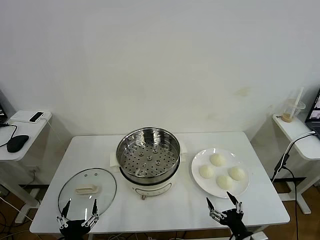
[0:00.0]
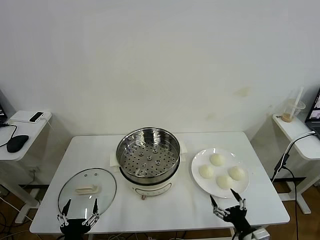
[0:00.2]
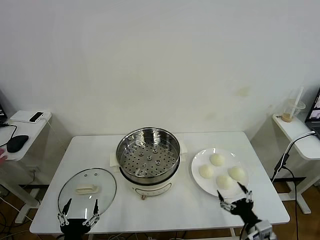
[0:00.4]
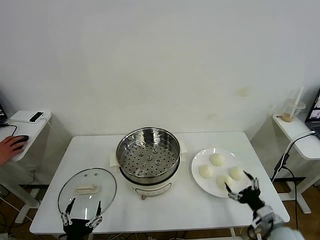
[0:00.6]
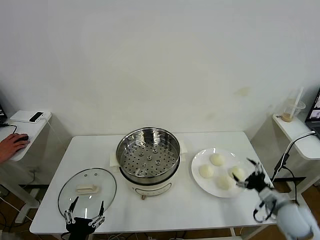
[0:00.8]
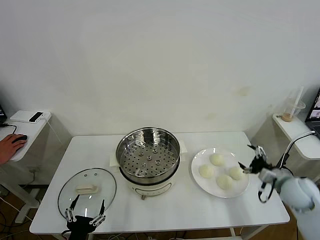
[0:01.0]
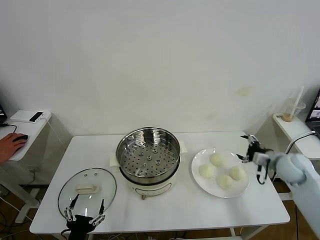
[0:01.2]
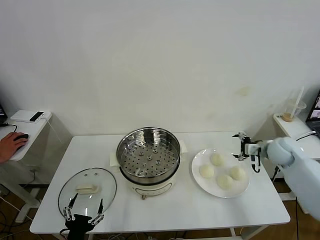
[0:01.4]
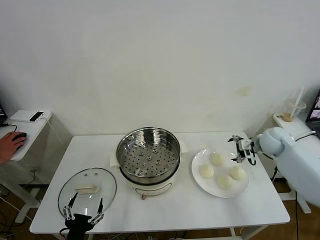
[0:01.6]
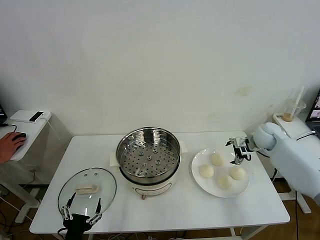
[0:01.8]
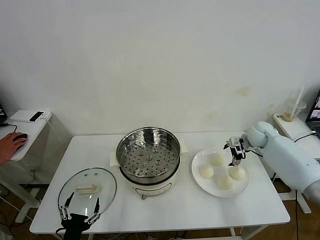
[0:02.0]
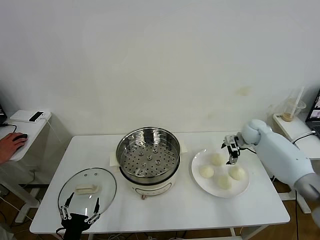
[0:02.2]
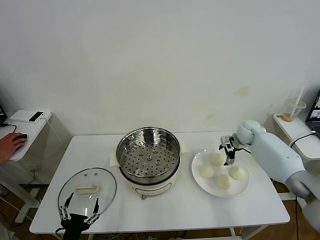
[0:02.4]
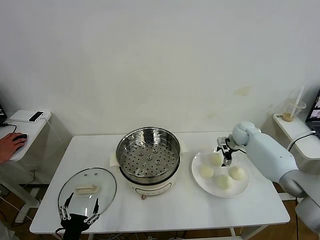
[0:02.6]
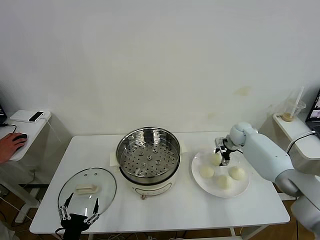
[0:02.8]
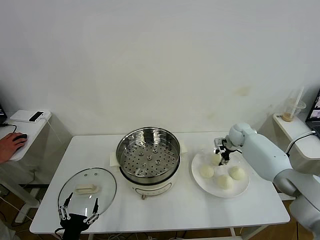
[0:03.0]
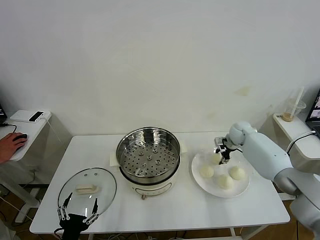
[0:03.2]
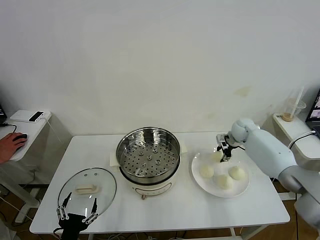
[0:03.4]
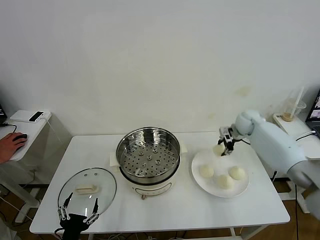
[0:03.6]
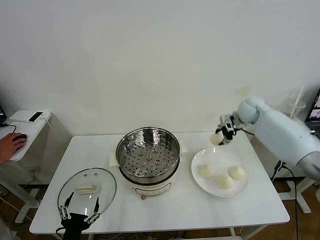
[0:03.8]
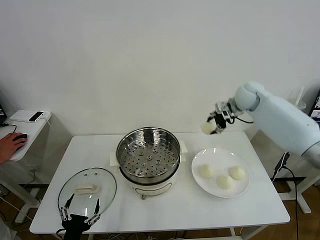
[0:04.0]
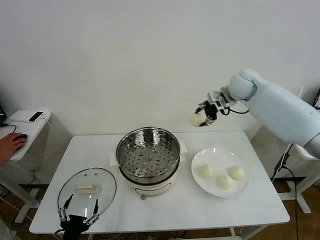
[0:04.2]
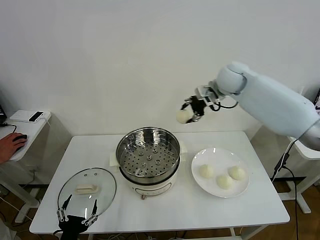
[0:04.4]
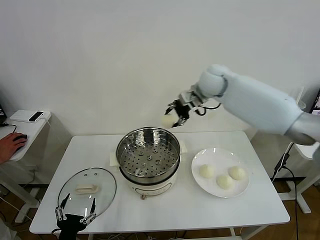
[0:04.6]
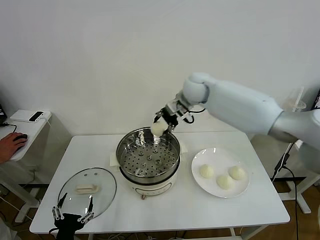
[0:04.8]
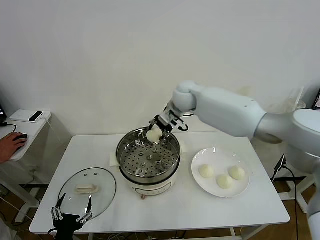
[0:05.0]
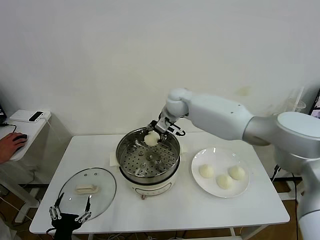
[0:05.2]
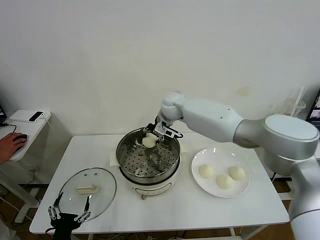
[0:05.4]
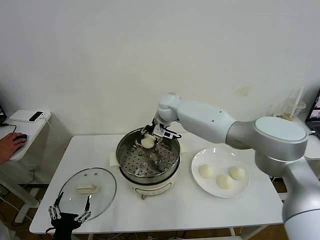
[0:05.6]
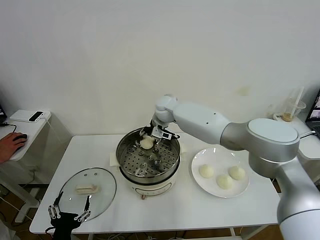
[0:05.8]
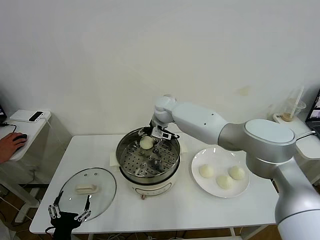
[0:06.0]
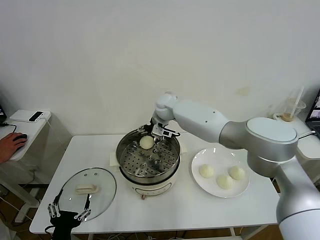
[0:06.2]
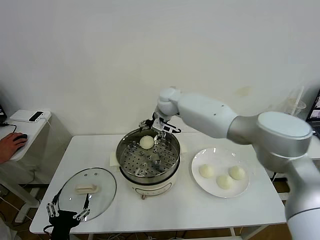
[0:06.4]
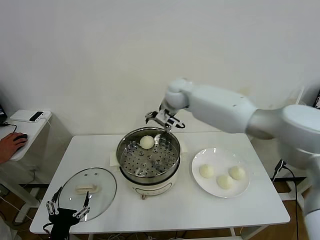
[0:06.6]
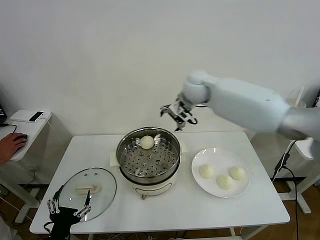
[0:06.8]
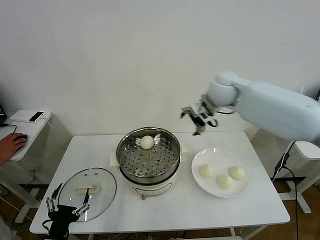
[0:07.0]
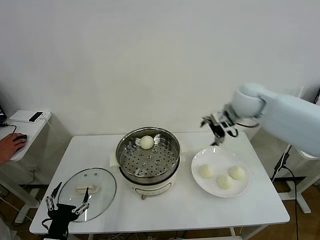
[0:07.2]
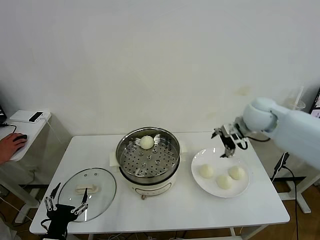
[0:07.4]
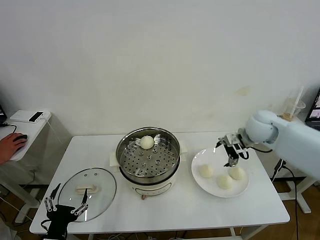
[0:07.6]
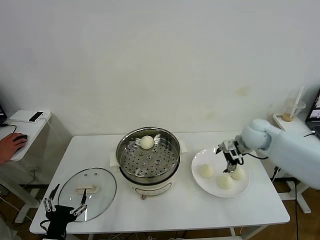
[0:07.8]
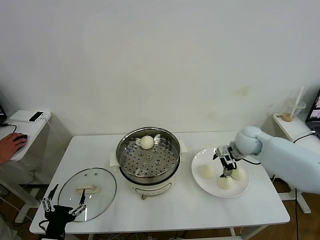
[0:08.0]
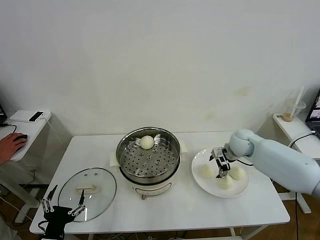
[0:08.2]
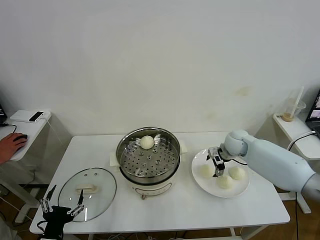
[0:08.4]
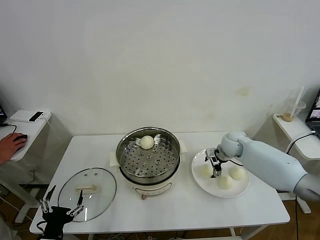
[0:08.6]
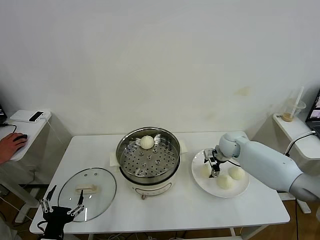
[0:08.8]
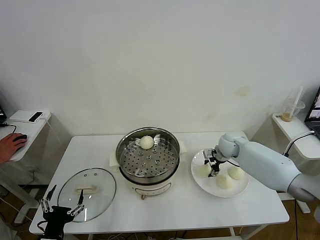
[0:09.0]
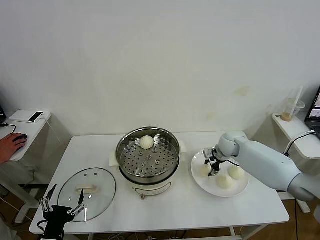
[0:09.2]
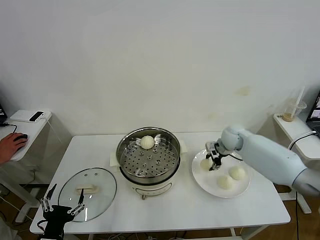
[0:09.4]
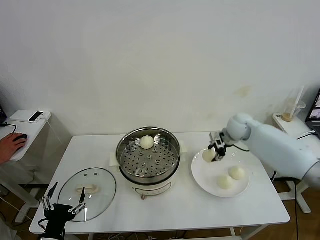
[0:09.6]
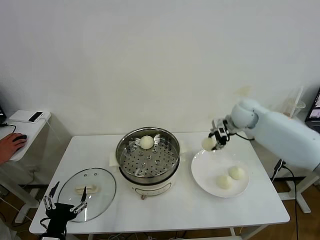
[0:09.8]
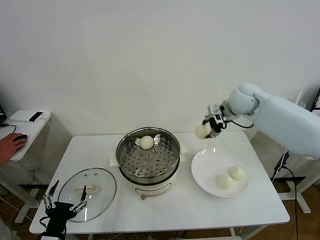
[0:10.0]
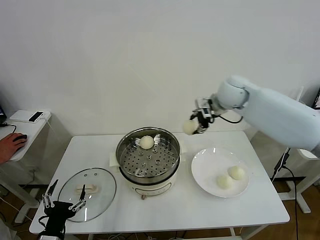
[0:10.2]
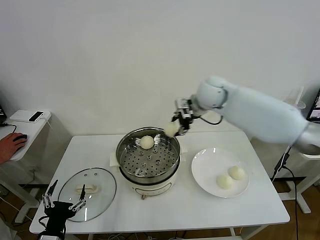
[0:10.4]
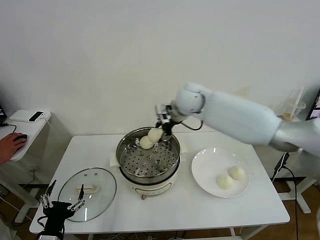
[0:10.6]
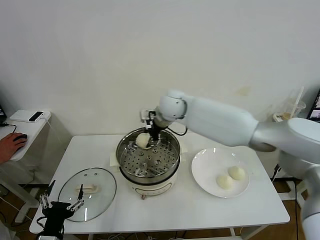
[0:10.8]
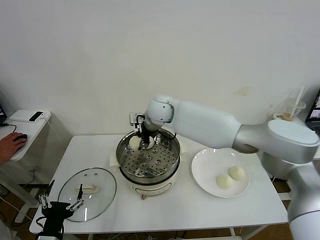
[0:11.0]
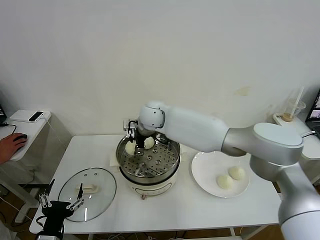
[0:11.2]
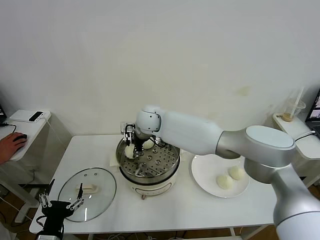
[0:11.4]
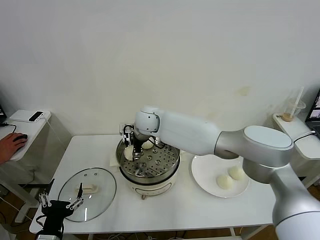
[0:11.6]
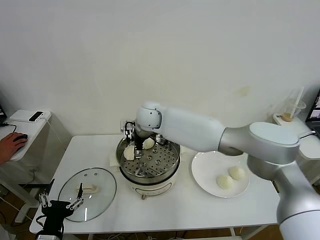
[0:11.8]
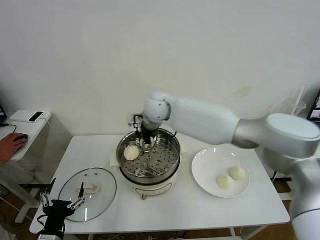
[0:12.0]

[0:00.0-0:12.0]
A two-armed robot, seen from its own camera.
Task of the whole recording: take steamed baozi put them in steamer then cover it.
Step, 0:00.0 to 0:03.2: Grasp the baozi in the plate with right gripper.
Step, 0:03.4 to 0:06.0: Place the baozi on the steamer with right gripper.
Step, 0:06.2 to 0:09.0: Grasp the baozi in the plate with right gripper.
Step, 0:09.2 to 0:11.8: Place the baozi on the steamer with right gripper.
0:01.6 to 0:03.0: The right gripper moves forward, to the left and downward, some 10 cm, and closes.
0:03.0 to 0:04.4: The right gripper travels upward and to the left by about 30 cm.
0:04.4 to 0:06.0: The right gripper goes roughly 20 cm to the left and downward, and opens up.
0:06.0 to 0:07.6: The right gripper shifts approximately 30 cm to the right.
0:07.6 to 0:09.0: The right gripper is displaced downward by about 10 cm, and closes its fingers.
0:09.0 to 0:10.4: The right gripper heads upward and to the left, covering some 25 cm.
0:10.4 to 0:12.0: The right gripper shifts approximately 10 cm to the left, and opens.

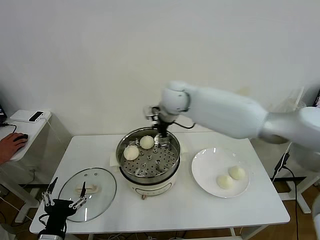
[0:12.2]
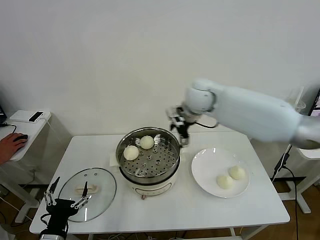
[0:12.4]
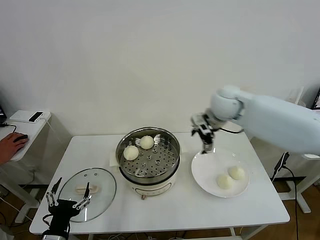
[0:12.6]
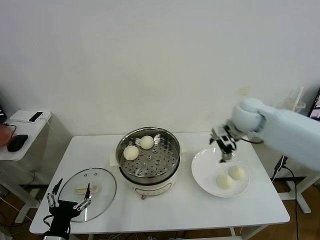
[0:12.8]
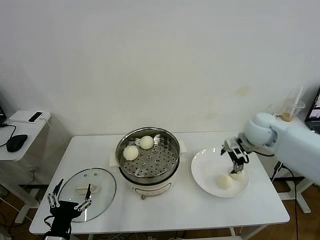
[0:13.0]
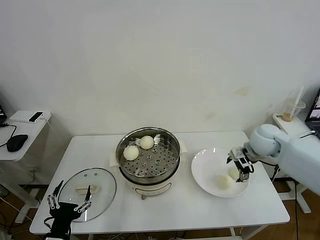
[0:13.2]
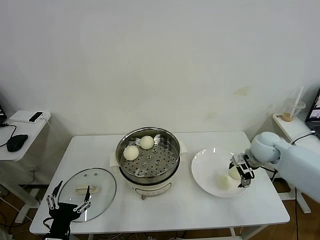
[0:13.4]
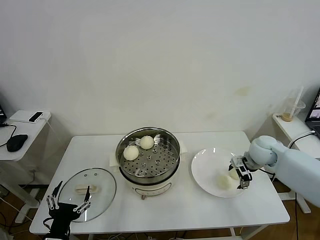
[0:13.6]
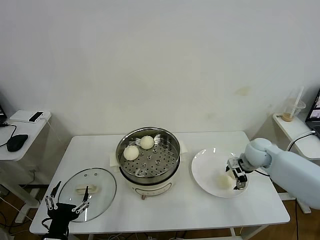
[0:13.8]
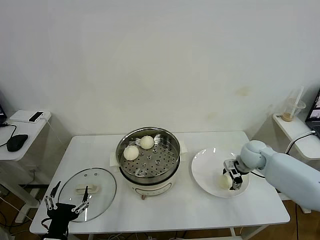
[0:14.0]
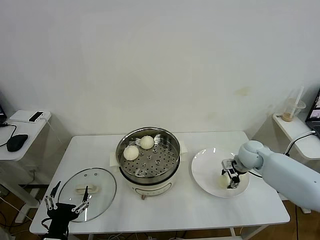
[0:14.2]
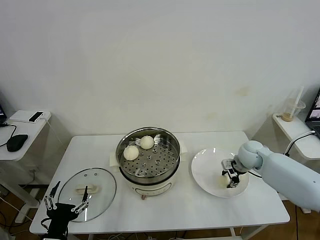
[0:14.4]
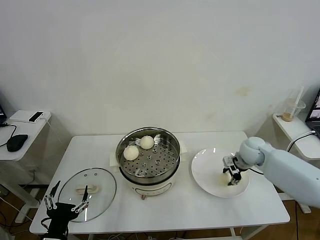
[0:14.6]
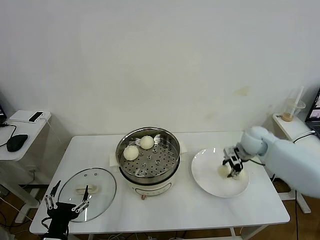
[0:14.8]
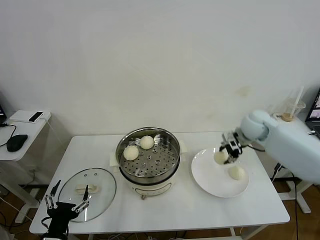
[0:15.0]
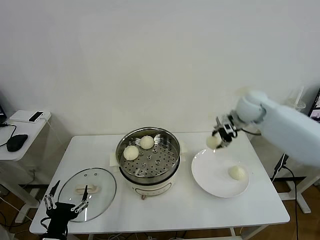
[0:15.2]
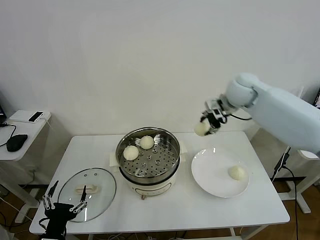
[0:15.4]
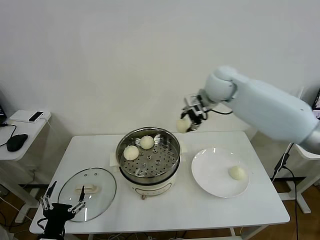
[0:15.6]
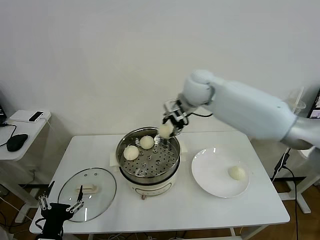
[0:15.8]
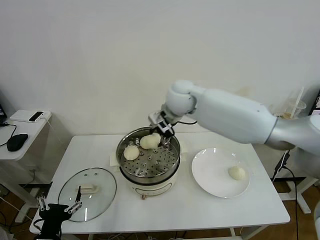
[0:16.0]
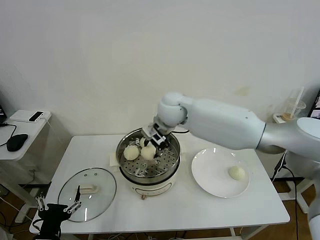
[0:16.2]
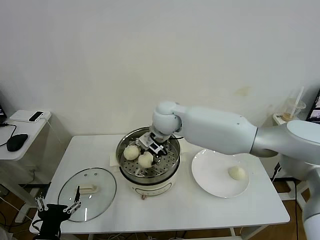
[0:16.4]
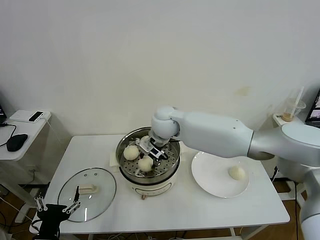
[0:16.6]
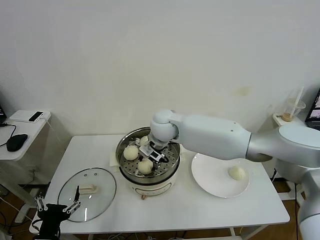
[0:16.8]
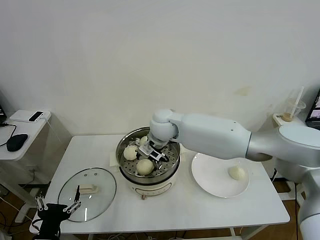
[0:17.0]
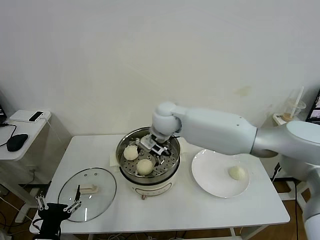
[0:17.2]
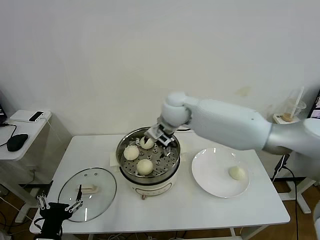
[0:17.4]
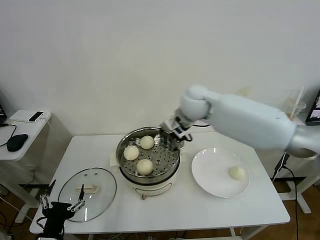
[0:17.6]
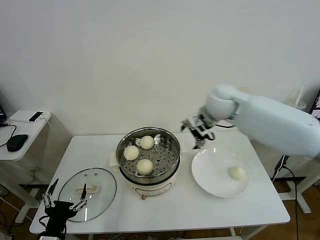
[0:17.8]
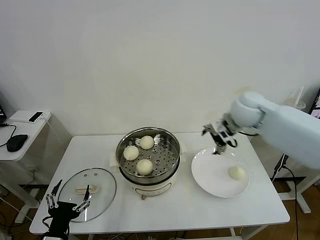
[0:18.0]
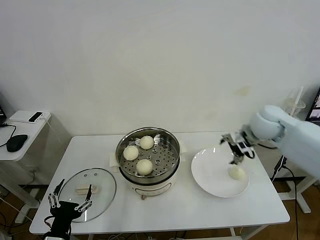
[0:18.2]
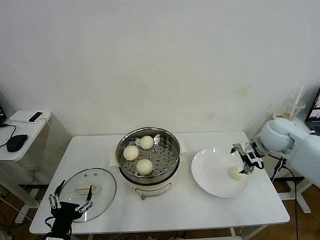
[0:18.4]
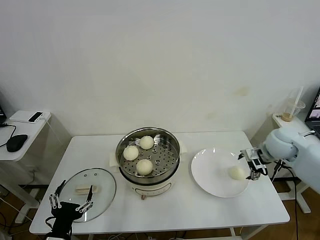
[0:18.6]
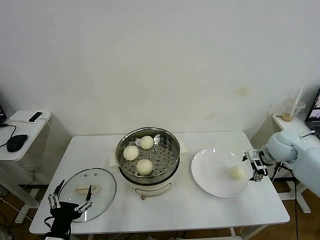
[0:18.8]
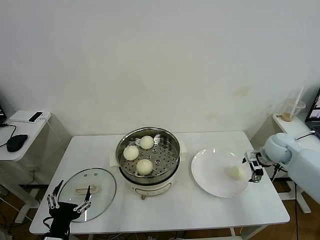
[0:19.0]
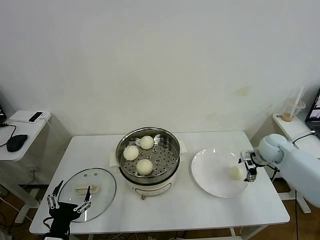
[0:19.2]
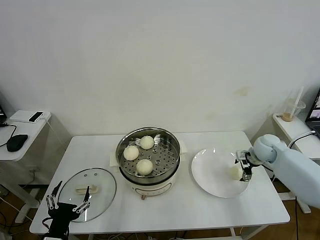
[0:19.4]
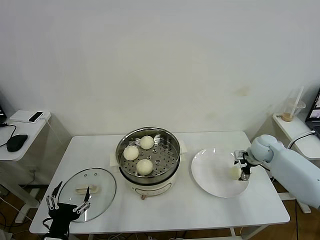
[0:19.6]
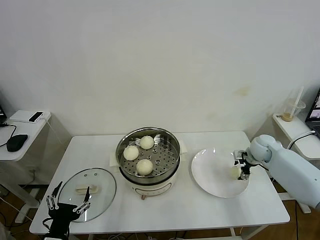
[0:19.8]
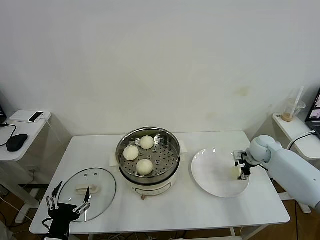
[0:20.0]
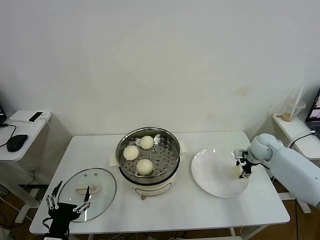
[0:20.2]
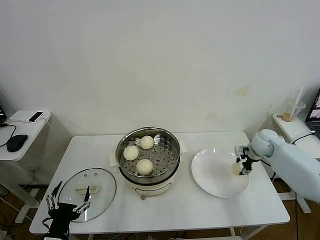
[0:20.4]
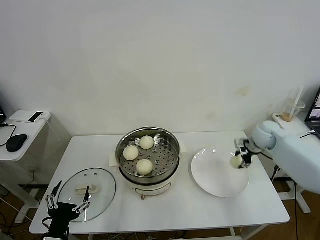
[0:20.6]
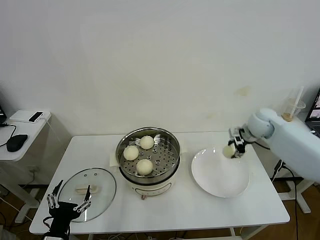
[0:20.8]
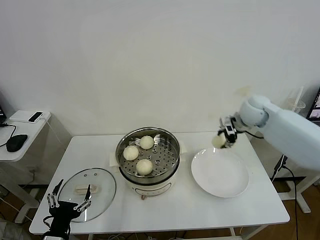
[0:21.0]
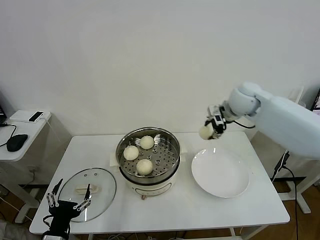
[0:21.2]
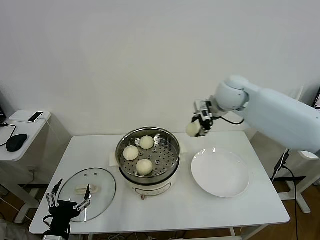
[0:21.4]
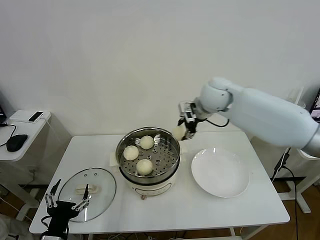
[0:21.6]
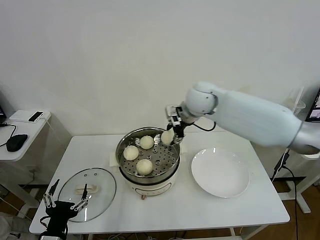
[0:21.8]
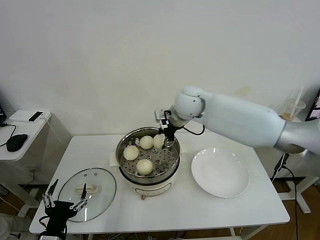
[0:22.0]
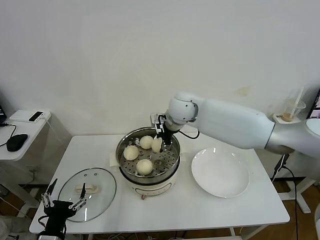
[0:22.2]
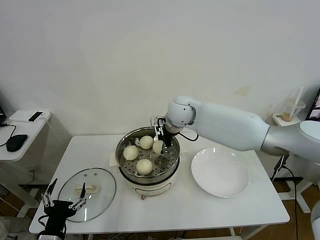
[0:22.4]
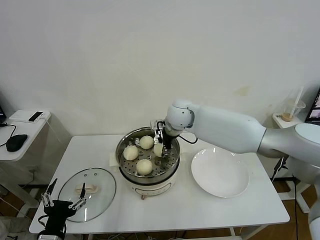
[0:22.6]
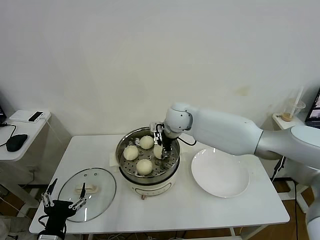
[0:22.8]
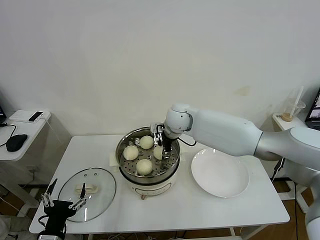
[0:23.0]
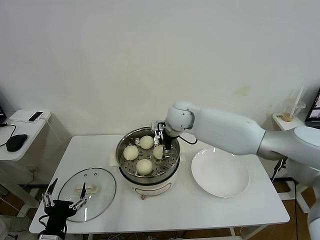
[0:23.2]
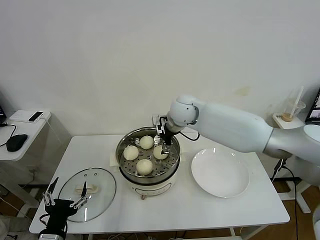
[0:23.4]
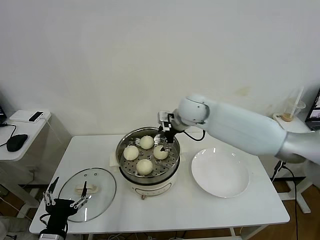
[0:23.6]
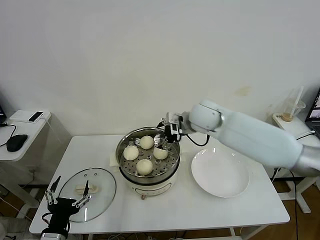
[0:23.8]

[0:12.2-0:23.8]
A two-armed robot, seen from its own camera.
Task of the whole recording: take steamed baozi put them in steamer then cover it.
Step, 0:12.2 to 0:14.4: Grasp the baozi in the plate with right gripper.
Step, 0:14.6 to 0:17.2: Place the baozi on the steamer with right gripper.
Step, 0:17.4 to 0:20.0: Grasp the baozi in the plate with right gripper.
Step, 0:20.2 to 0:23.2: Place the baozi on the steamer with right gripper.
0:12.2 to 0:13.6: The right gripper moves to the right and downward, about 35 cm.
0:13.6 to 0:15.0: The right gripper travels upward and forward by about 10 cm, and closes up.
0:15.0 to 0:16.6: The right gripper is displaced to the left by about 30 cm.
0:16.6 to 0:18.0: The right gripper is displaced to the right by roughly 25 cm, and opens its fingers.
0:18.0 to 0:19.4: The right gripper shifts roughly 20 cm downward and to the right.
0:19.4 to 0:21.0: The right gripper moves upward and to the left, roughly 20 cm, and closes its fingers.
0:21.0 to 0:22.4: The right gripper is displaced to the left by some 25 cm.
0:22.4 to 0:23.8: The right gripper shifts approximately 5 cm to the right, and opens.
